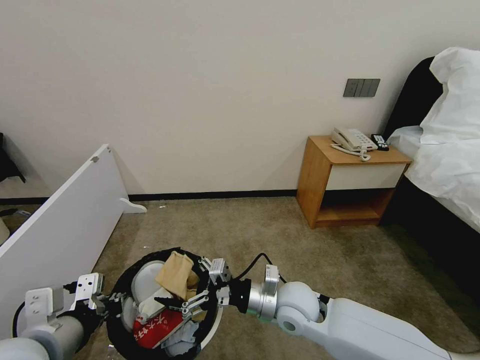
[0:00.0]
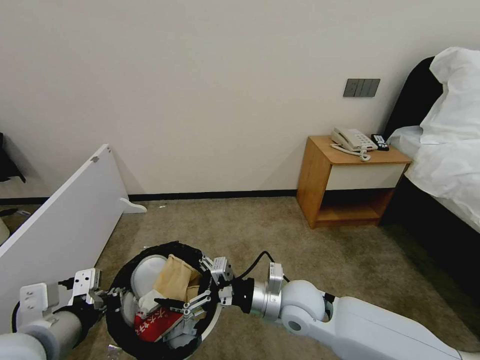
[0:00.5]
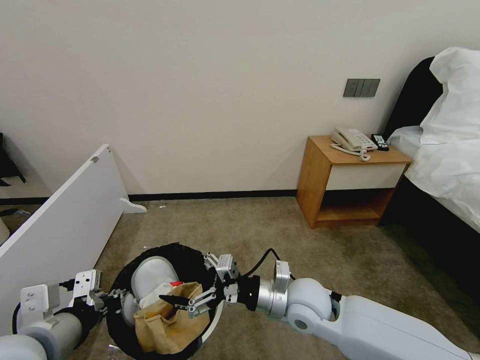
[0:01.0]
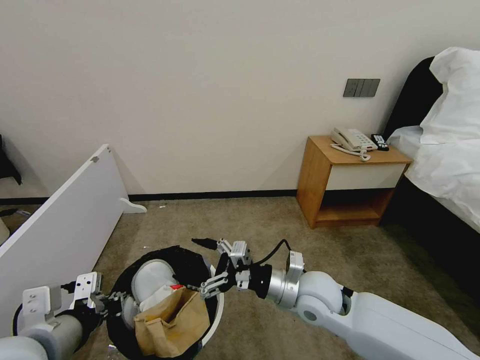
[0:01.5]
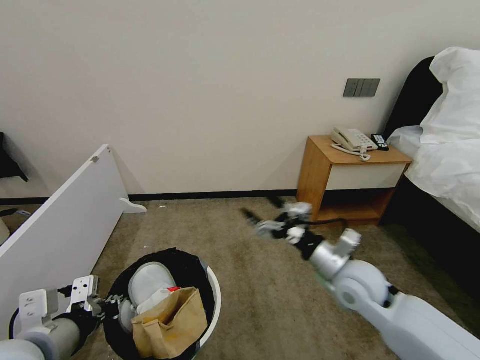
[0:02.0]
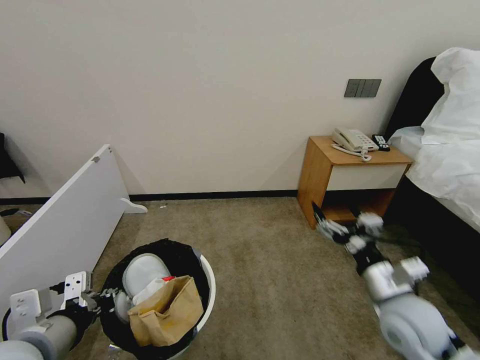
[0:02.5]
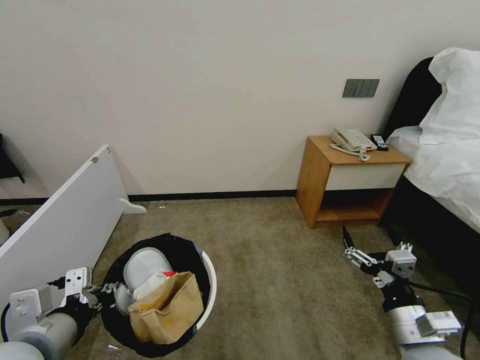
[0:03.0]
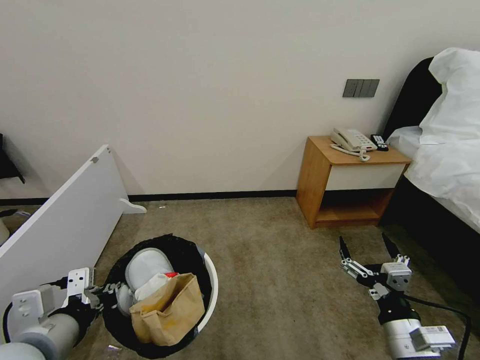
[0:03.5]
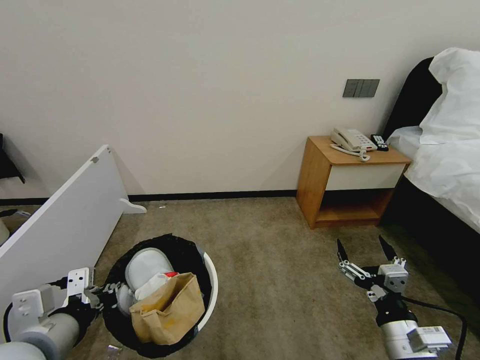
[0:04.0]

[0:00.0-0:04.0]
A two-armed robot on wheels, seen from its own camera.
Task of the whole recording: Pick up the trash bin, then pick up the garbage from the floor and place it into the trash bin.
0:00.0 to 0:02.0: The right gripper goes some 15 cm to the right and upward.
0:02.0 to 0:04.0: The right gripper travels backward by some 15 cm.
